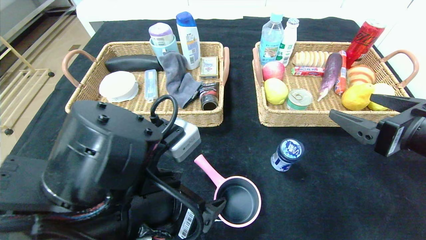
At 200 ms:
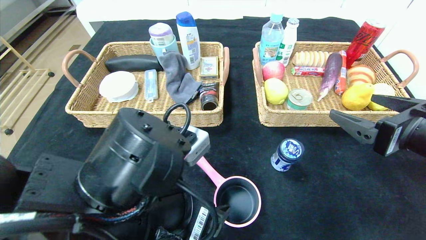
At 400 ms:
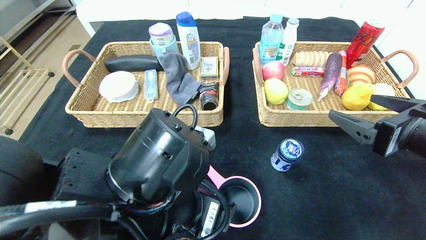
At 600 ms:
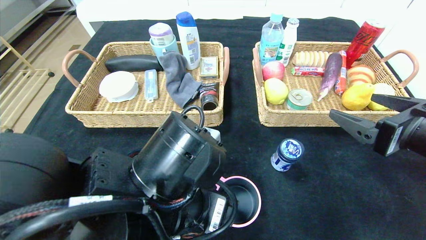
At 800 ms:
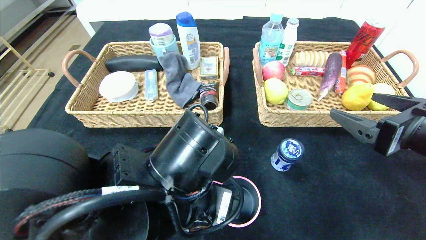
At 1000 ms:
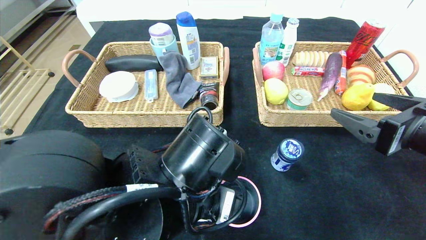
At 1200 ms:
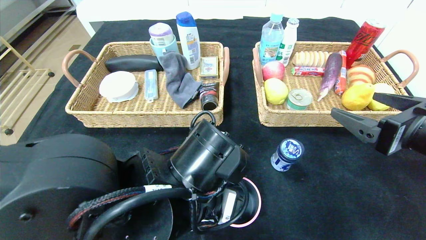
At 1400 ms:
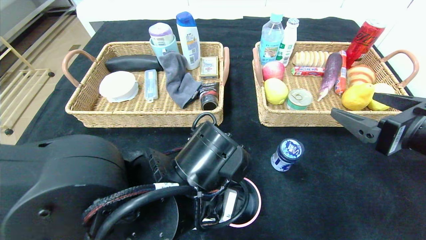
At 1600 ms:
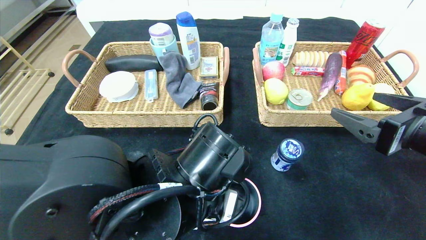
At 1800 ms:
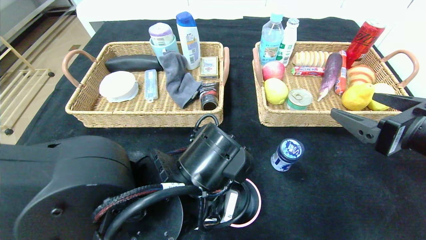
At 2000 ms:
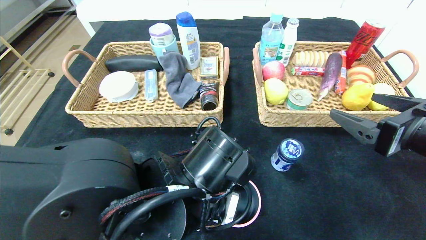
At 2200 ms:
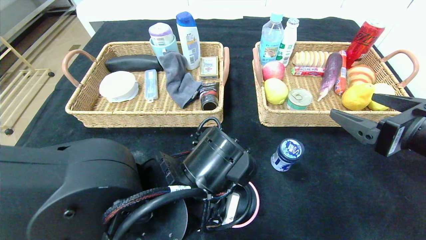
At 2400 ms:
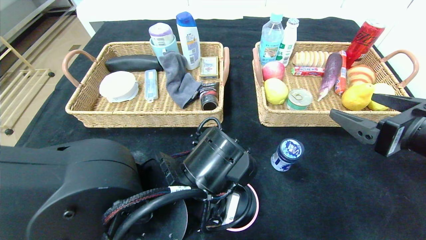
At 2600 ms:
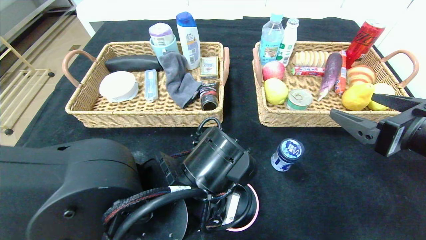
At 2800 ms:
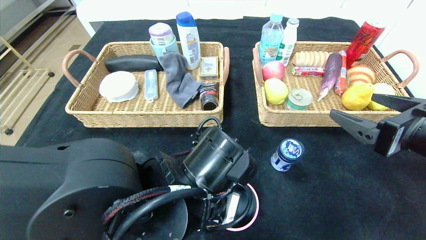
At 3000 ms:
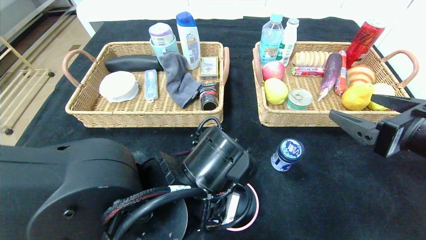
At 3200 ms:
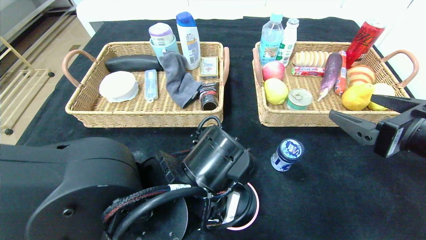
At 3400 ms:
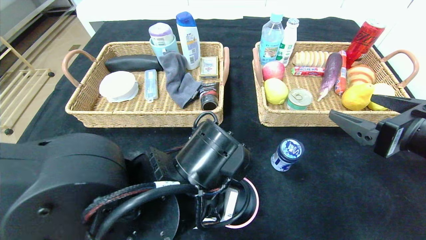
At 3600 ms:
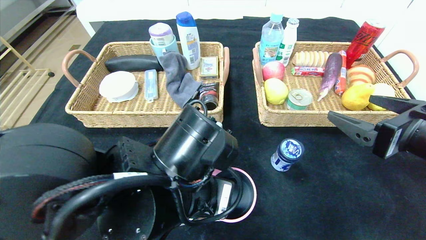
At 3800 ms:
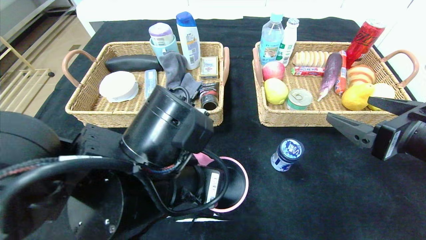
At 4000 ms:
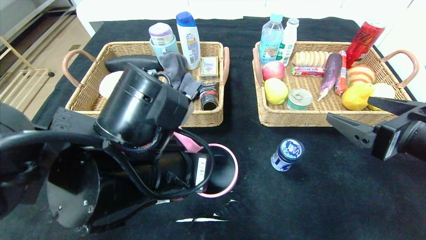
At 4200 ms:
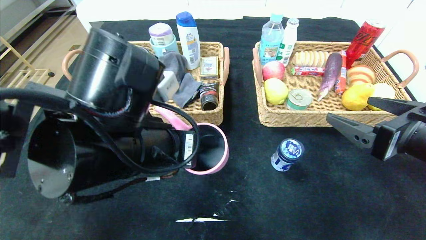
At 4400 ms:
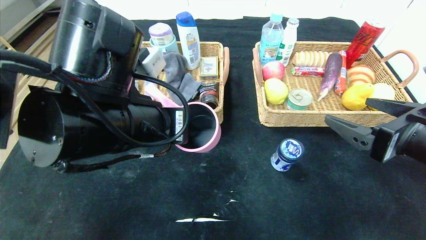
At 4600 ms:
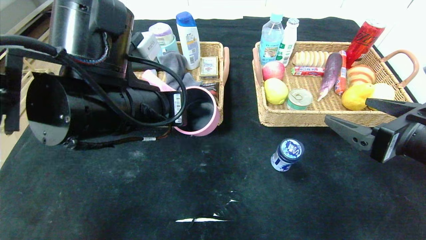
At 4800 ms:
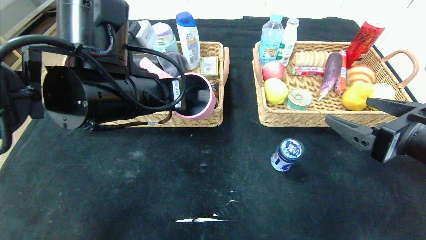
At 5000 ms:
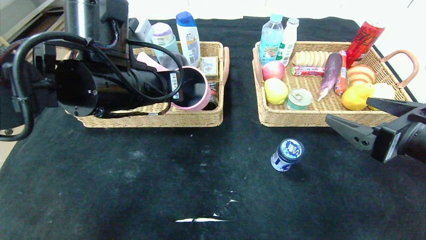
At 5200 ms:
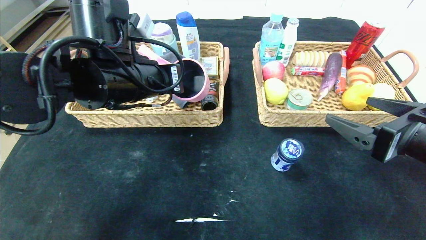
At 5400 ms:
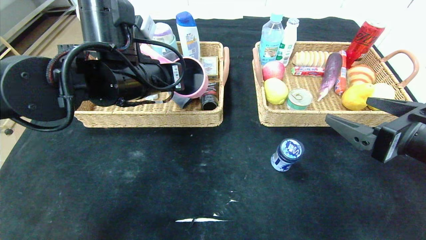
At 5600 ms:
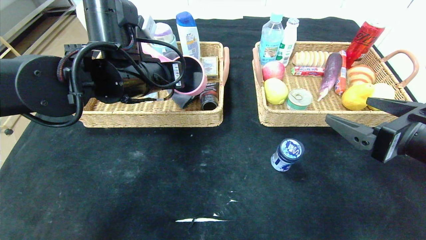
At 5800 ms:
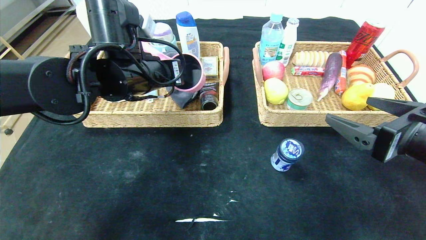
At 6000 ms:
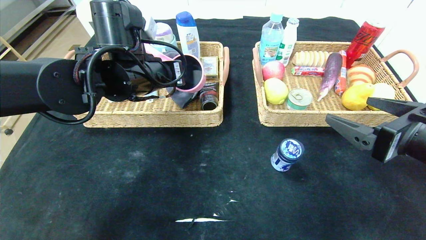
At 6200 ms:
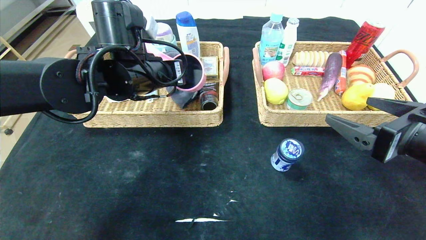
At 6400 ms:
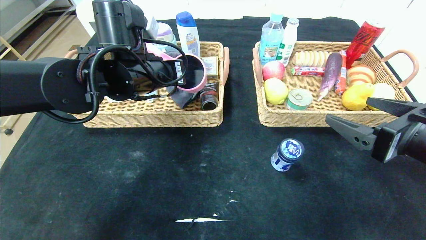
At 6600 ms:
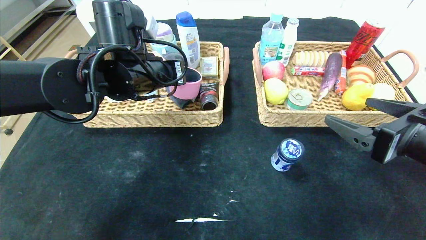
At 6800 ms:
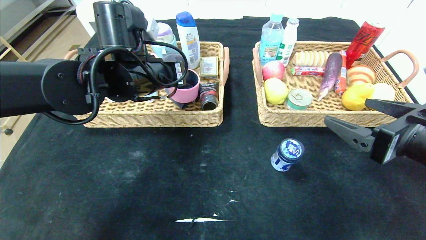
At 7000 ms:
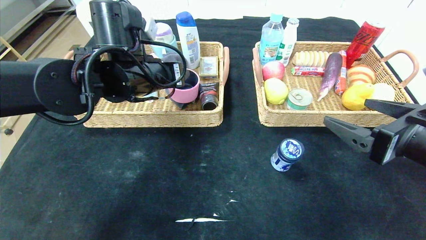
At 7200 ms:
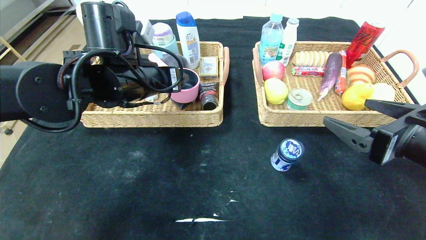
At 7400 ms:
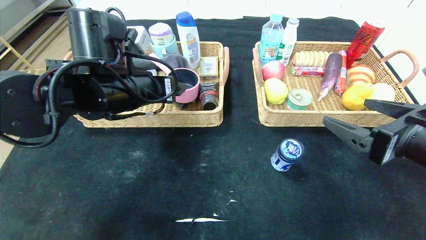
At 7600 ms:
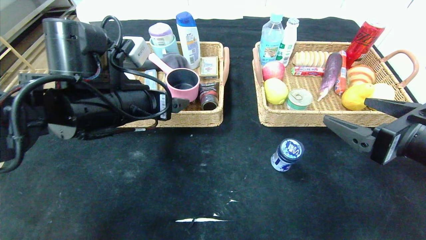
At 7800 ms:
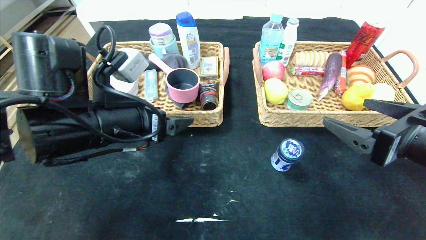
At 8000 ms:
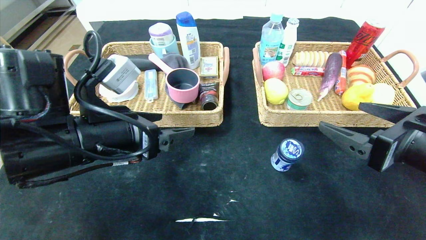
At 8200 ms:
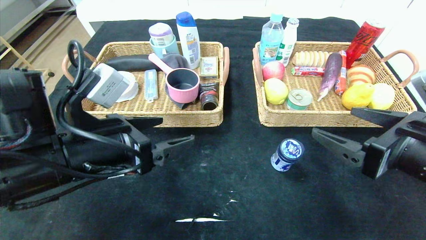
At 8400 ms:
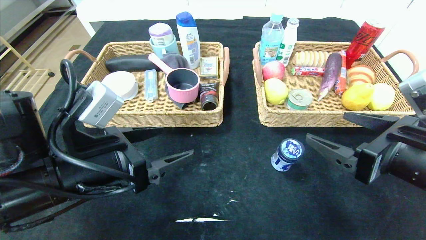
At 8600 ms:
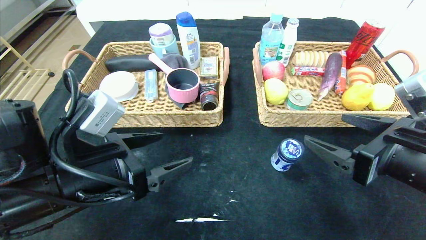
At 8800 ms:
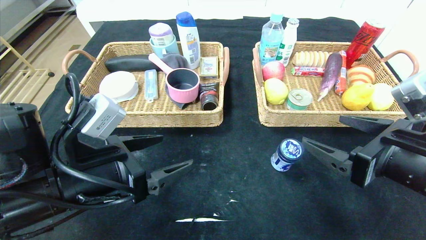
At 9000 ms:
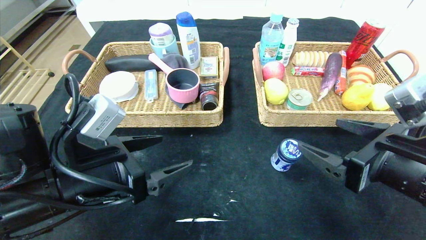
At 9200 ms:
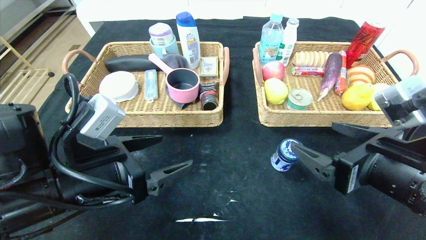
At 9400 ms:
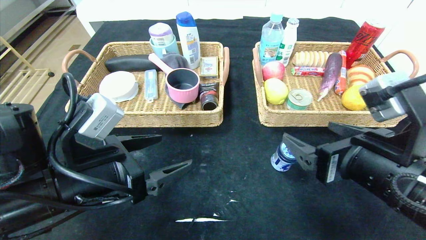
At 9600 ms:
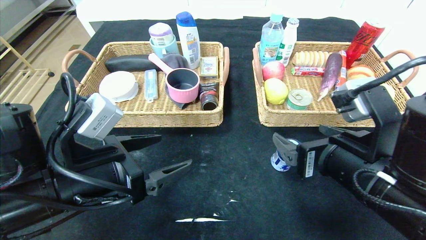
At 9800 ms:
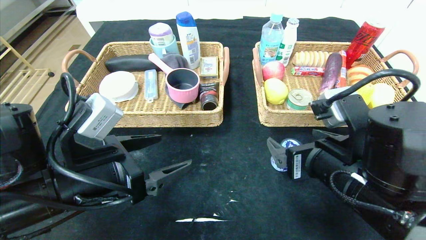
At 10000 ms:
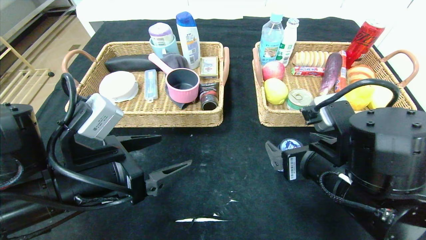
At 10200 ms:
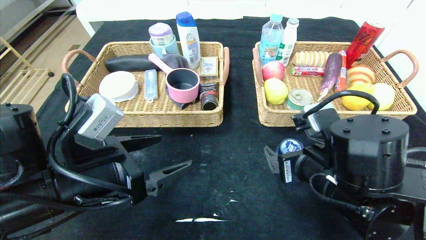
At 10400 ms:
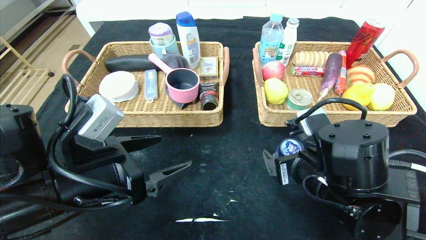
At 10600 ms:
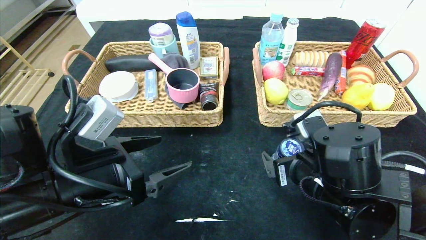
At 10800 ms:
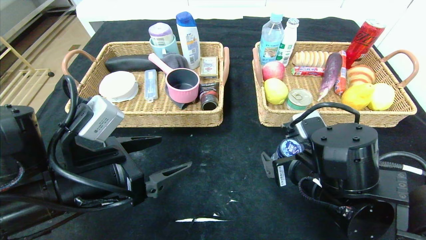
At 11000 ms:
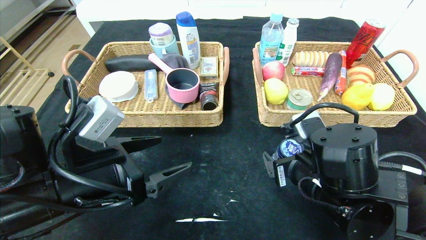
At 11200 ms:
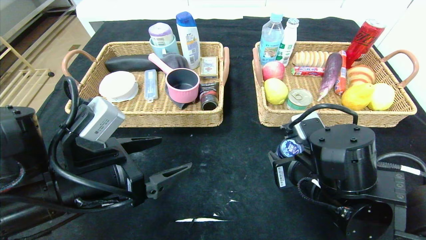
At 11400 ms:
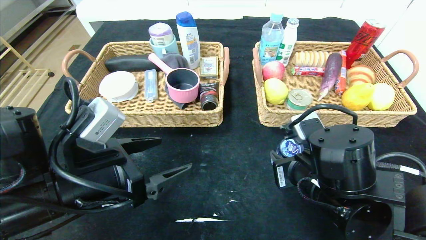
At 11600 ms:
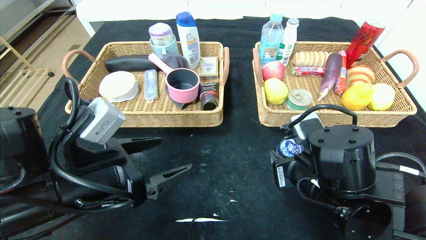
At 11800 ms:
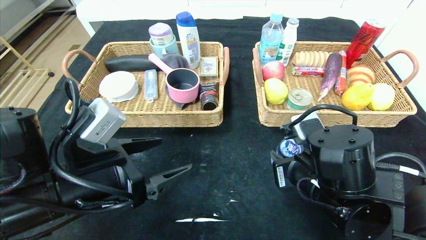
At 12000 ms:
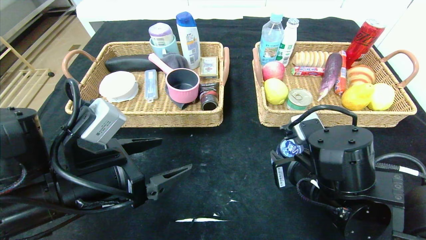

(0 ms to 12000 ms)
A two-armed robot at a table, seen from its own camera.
Step, 0 ms - 8200 ms: Pick up the pink pot and put it in the left basket.
0 ms - 1600 ms: The left gripper is displaced to the right by approximately 5 cm.
1600 ms - 3000 ms: The left gripper closes.
3000 ms - 4400 ms: The left gripper goes roughly 10 cm upward and to the left.
4400 ms - 6000 ms: The left gripper moves forward, some 15 cm.
6000 ms - 7600 ms: The left gripper travels backward by approximately 5 cm, and opens its fingers.
7600 ms - 9000 ms: The left gripper goes roughly 10 cm backward and downward.
9000 ms - 10400 ms: The right gripper moves to the left and downward, roughly 10 cm.
10400 ms - 12000 ms: The right gripper closes its fingers.

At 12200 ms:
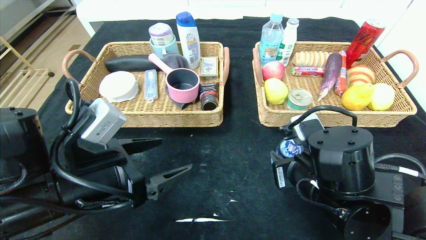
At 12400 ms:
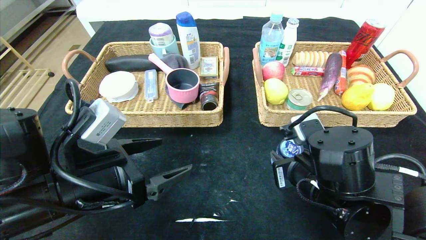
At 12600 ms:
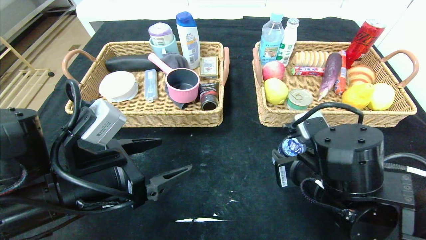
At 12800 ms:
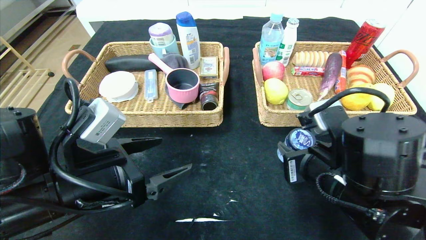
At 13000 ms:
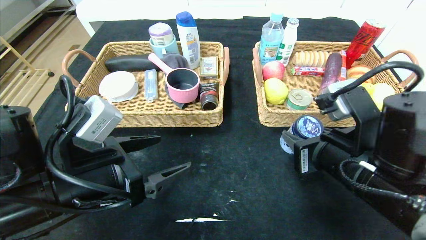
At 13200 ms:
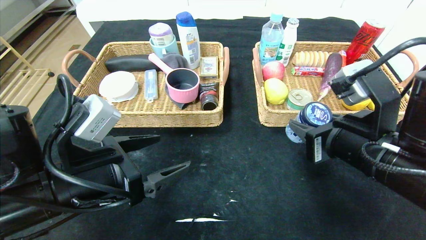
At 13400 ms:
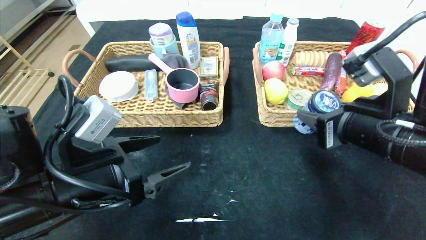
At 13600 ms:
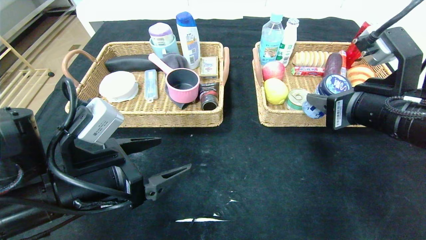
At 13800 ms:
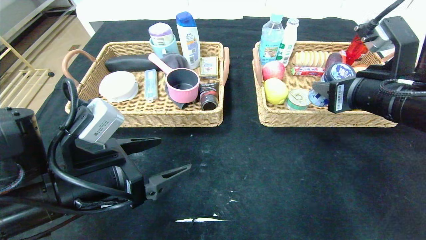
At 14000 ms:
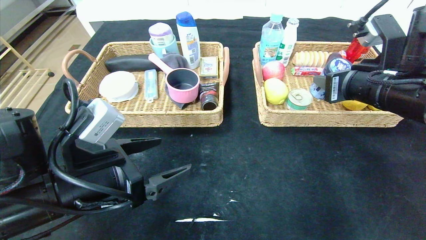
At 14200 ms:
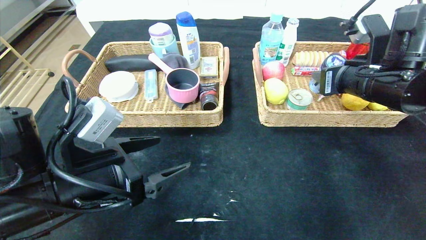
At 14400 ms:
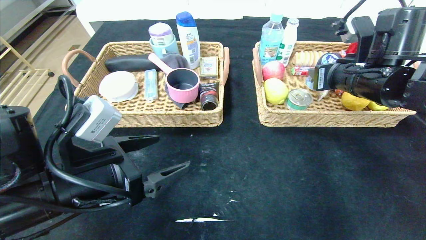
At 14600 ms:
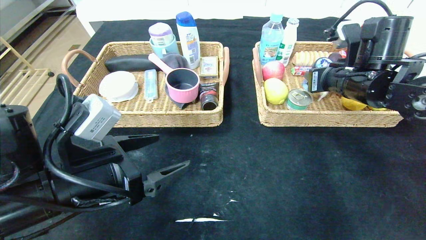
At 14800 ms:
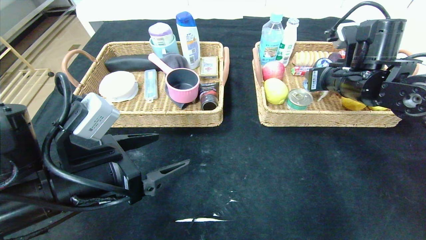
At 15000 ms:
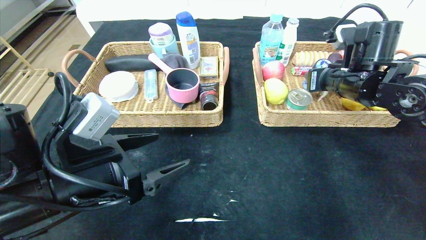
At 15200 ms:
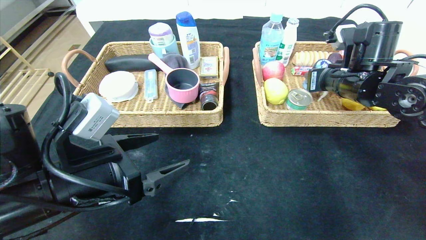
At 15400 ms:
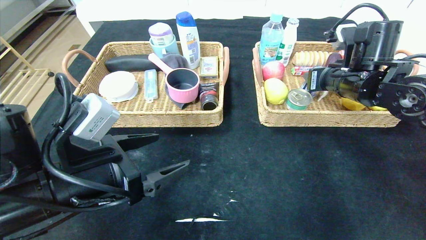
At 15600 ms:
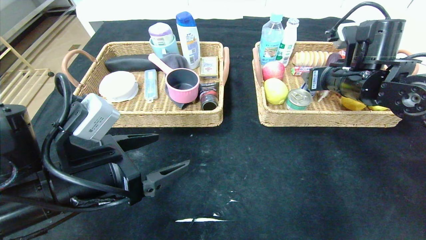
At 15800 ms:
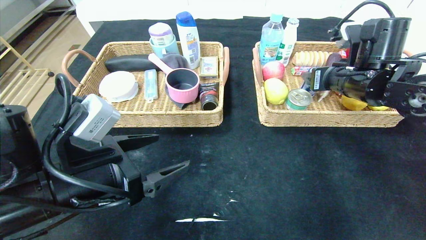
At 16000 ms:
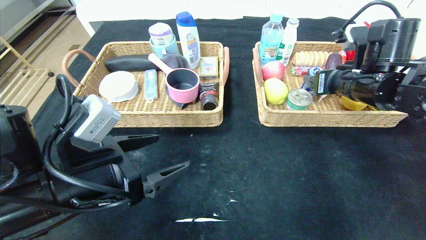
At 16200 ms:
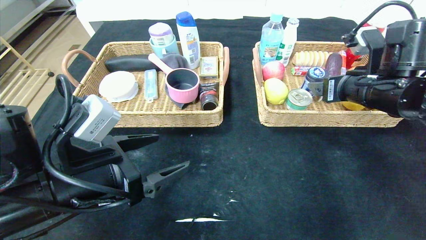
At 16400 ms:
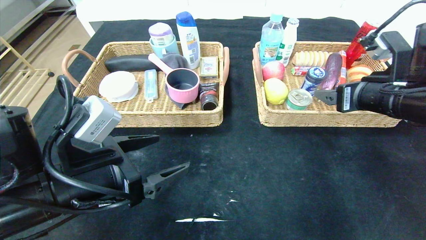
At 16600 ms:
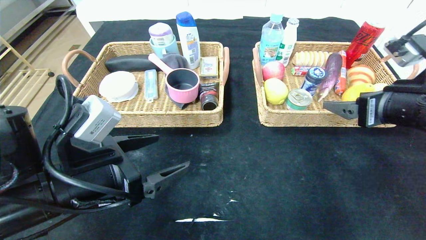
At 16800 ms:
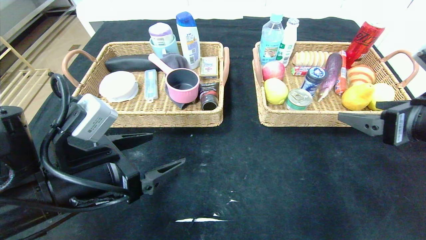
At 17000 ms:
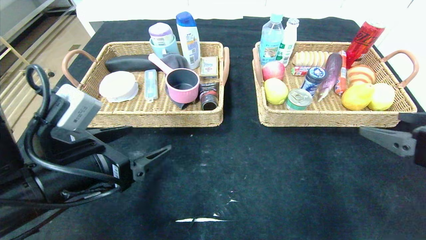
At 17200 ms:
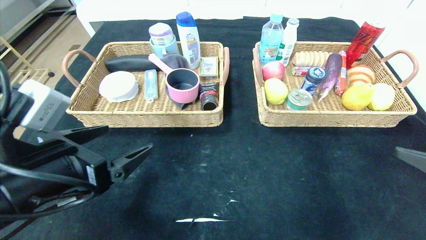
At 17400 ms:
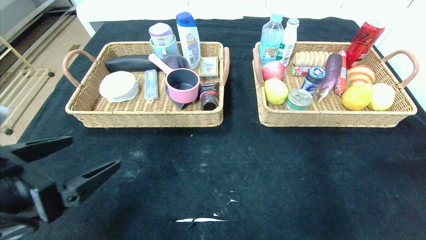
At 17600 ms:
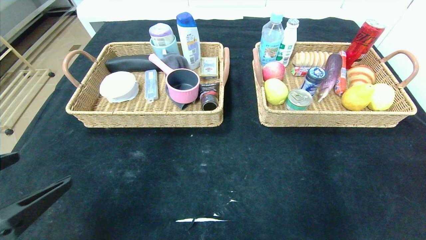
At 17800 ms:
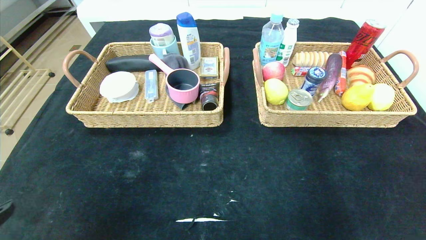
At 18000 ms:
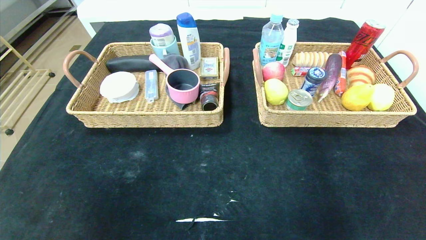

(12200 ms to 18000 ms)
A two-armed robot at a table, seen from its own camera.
Step, 12200 ms - 17200 ms: Pick up the round chewing gum and put it in the right basket.
12200 ms - 13600 ms: The right gripper moves upward and to the right, some 15 cm.
13600 ms - 15000 ms: The right gripper goes approximately 15 cm forward.
15000 ms - 16600 ms: The right gripper shifts about 15 cm backward, and opens its fingers.
16600 ms - 18000 ms: The right gripper goes roughly 30 cm backward; the left gripper shifts roughly 25 cm backward and to the left.
